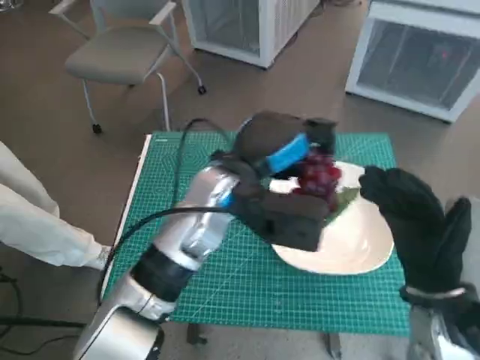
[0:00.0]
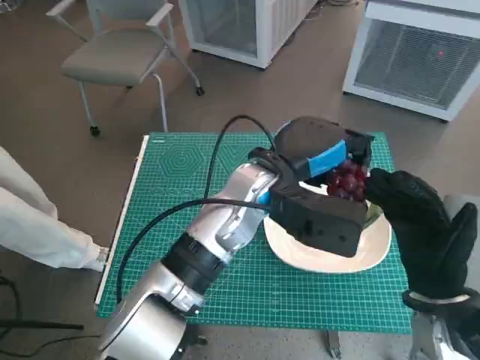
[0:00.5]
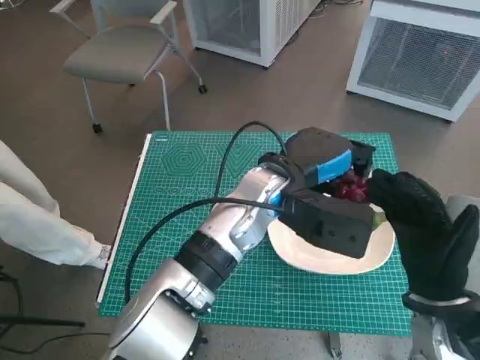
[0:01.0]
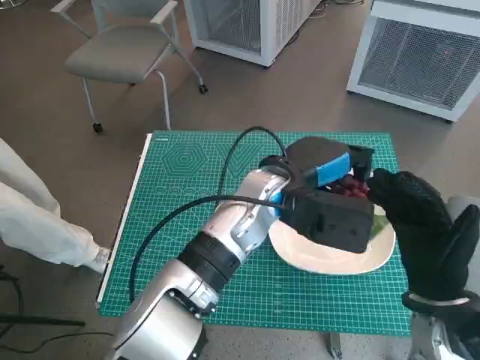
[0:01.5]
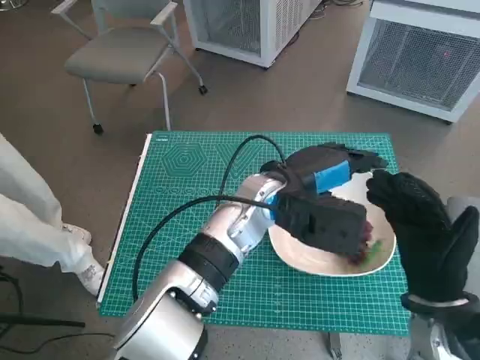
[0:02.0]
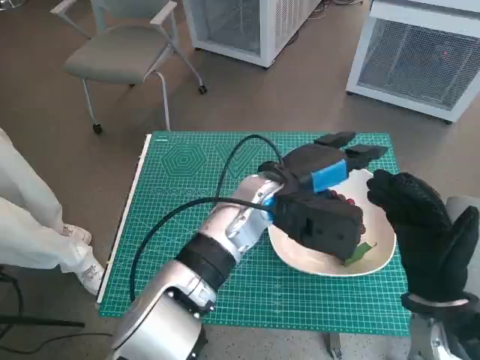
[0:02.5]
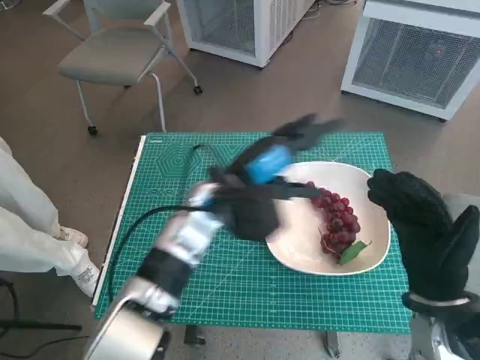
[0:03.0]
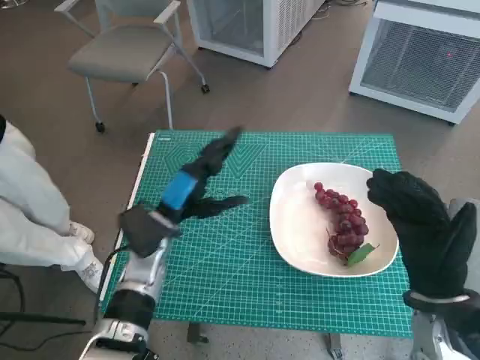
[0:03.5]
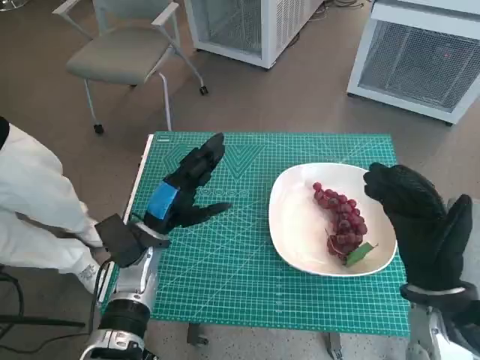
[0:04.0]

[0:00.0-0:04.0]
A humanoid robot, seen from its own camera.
Task of the whole recording: Pick up the grapes and put them on the plate.
0.0 to 2.0 s: The left hand is displaced to the right by some 5 cm.
2.0 to 4.0 s: The left hand shifts some 20 cm to the left and downward.

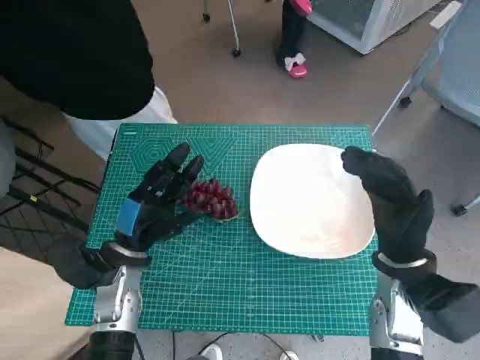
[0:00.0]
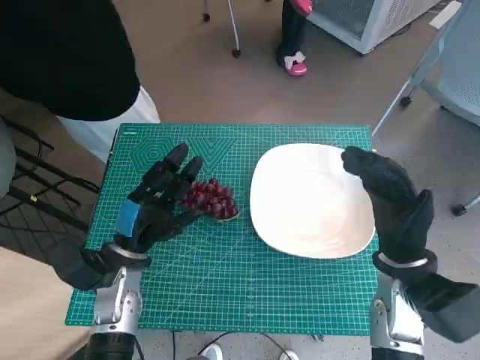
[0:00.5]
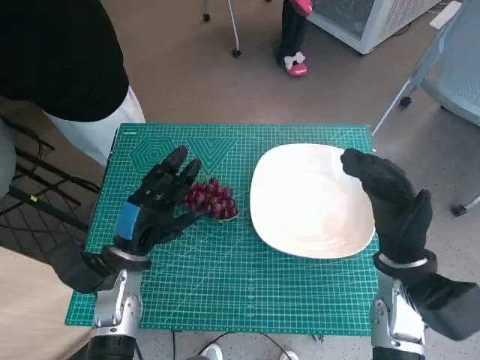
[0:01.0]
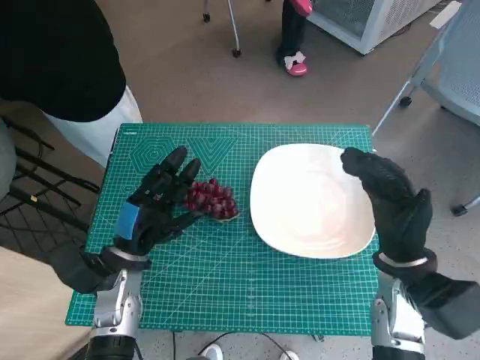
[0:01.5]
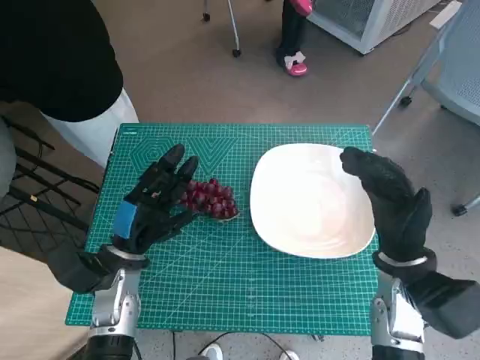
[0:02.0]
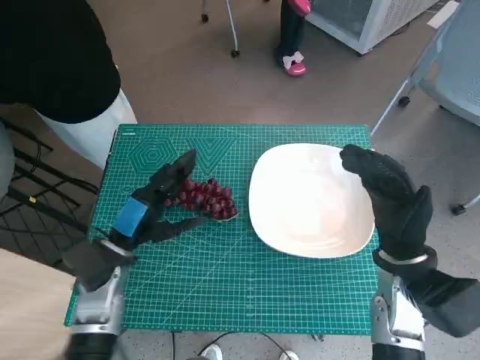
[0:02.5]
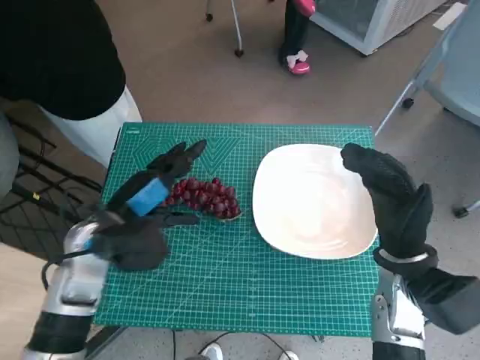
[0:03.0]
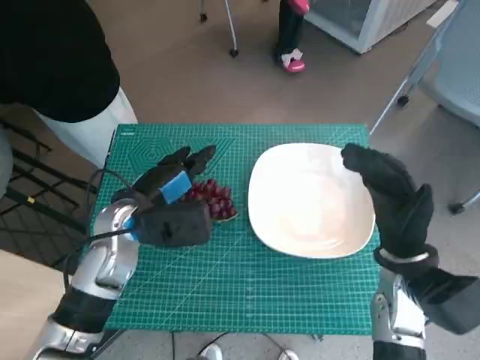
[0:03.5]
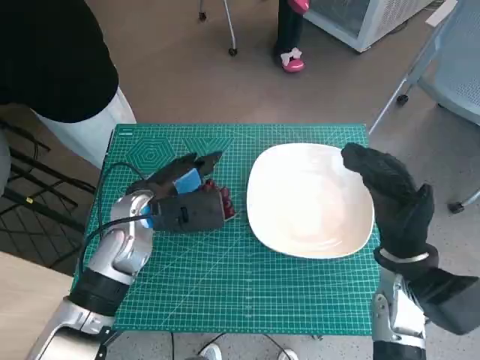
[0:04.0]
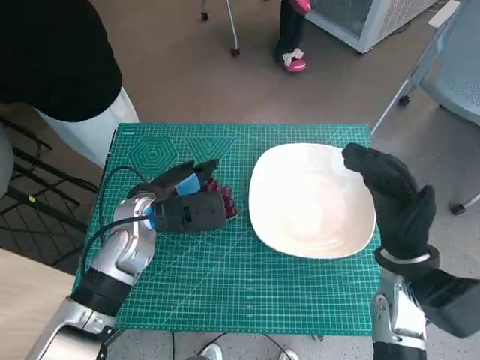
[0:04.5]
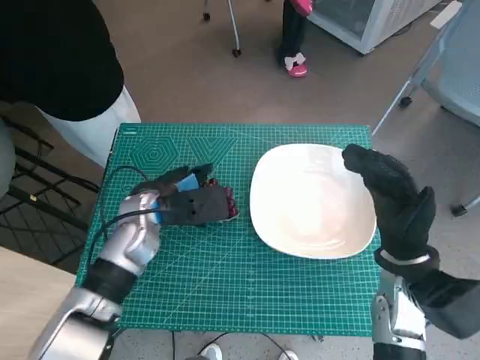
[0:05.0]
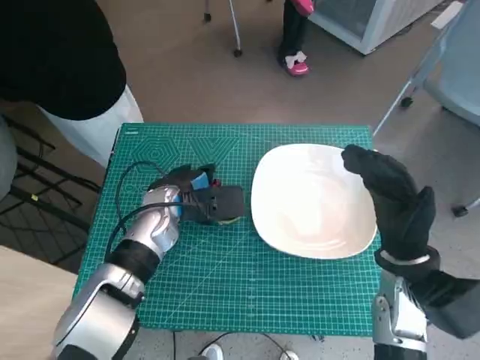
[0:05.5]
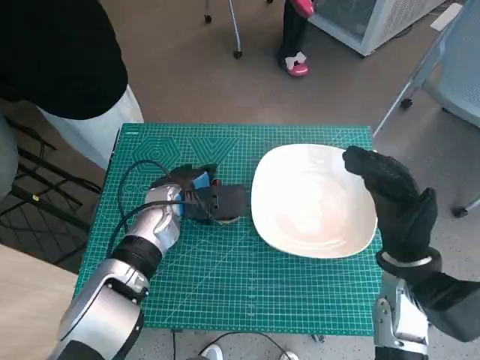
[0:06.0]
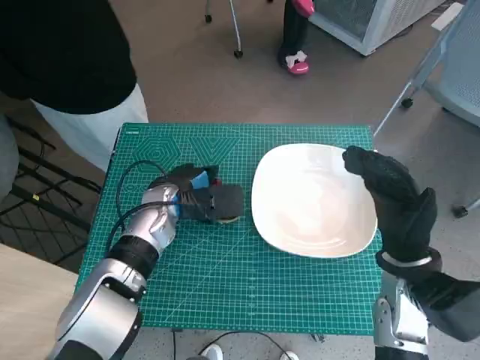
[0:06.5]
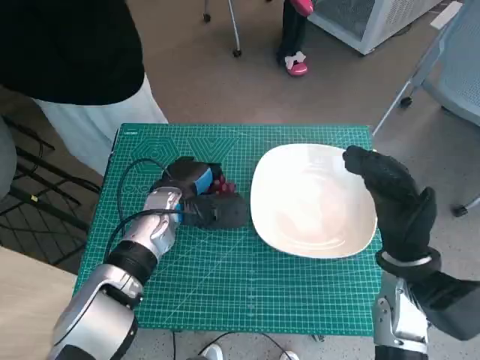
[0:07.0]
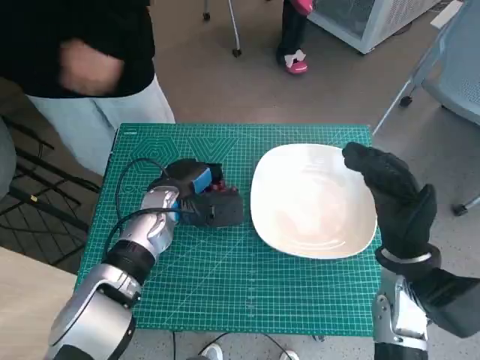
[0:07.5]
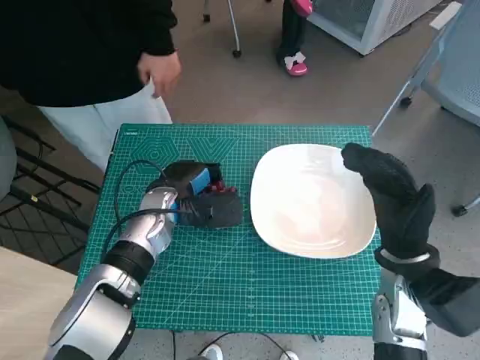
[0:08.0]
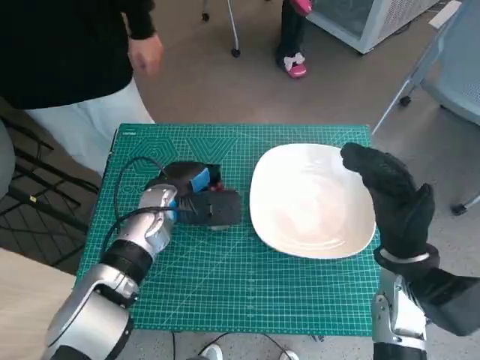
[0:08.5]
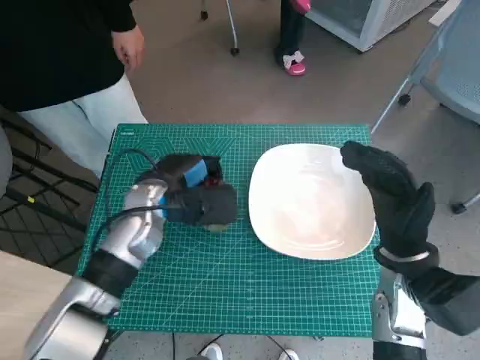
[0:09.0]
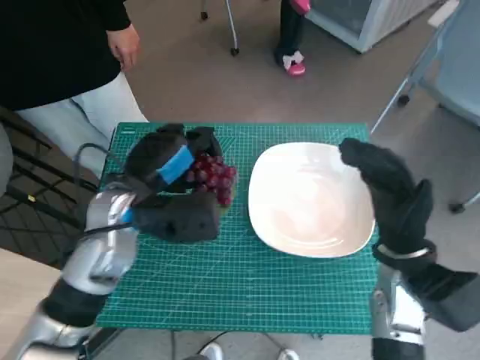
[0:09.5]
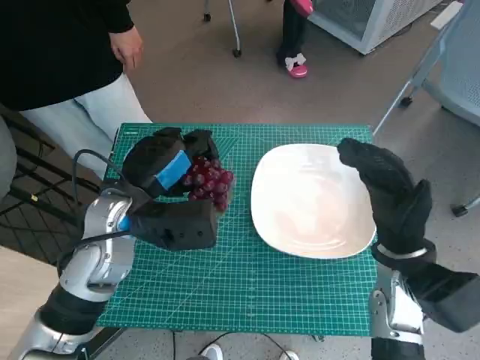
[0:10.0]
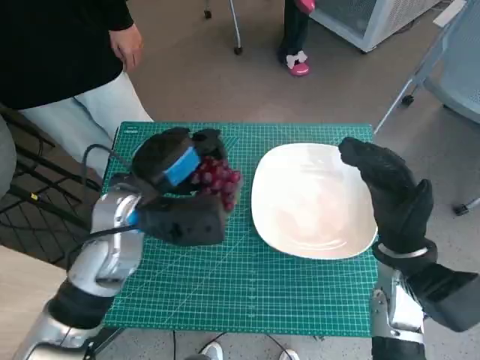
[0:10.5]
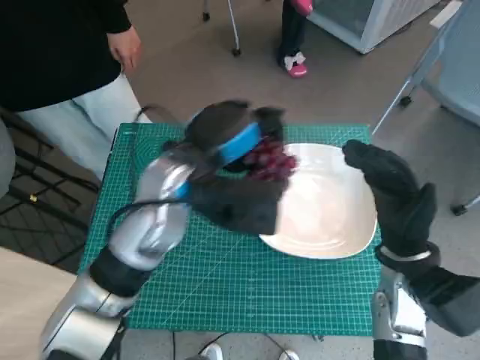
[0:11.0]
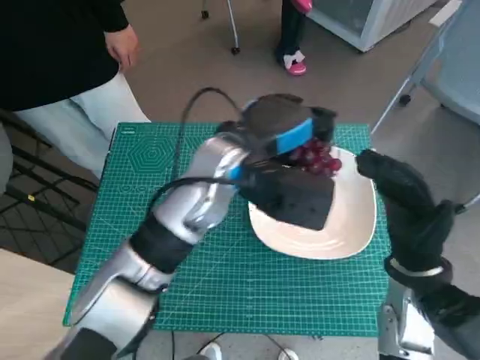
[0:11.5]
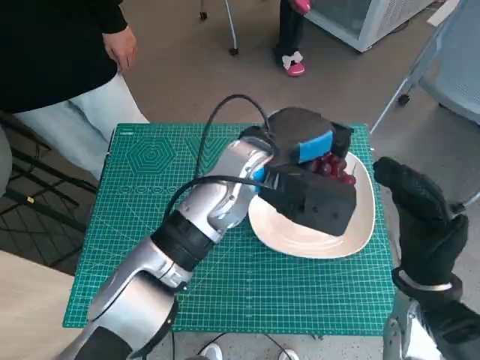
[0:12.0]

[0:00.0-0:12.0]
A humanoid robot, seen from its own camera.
Task of the whole recording: Pick up the grapes and put them on the plate.
Step, 0.0 to 7.0 s: Grasp the grapes with left hand.
2.0 to 4.0 s: The left hand goes some 10 cm upward and forward.
4.0 to 6.0 s: The left hand shifts by about 5 cm.
6.0 to 8.0 s: The hands move only a little.
8.0 to 10.0 s: The left hand goes roughly 10 cm upward and backward.
10.0 to 12.0 s: The left hand moves to the right, roughly 15 cm.

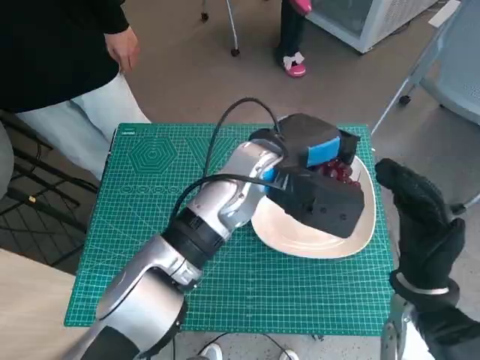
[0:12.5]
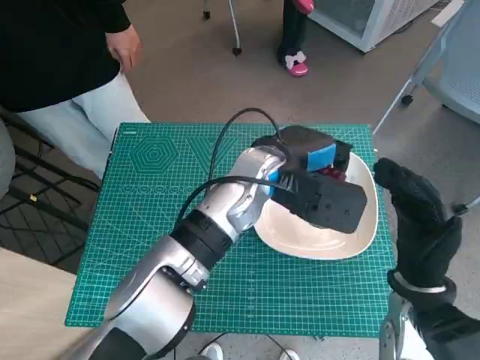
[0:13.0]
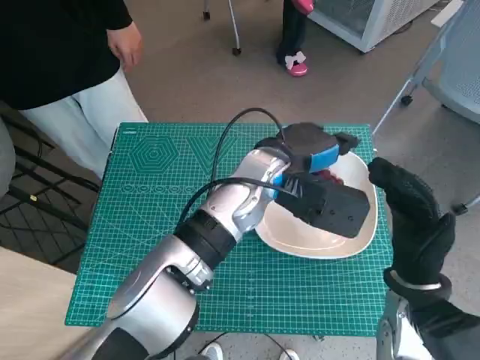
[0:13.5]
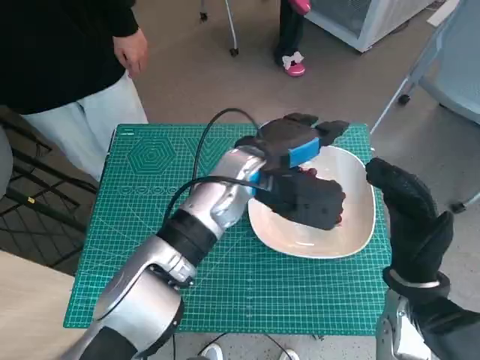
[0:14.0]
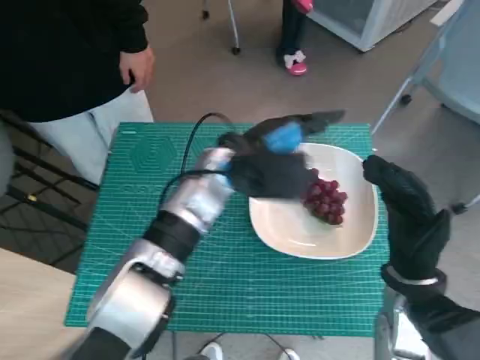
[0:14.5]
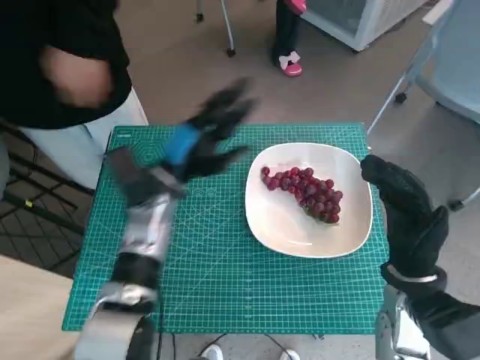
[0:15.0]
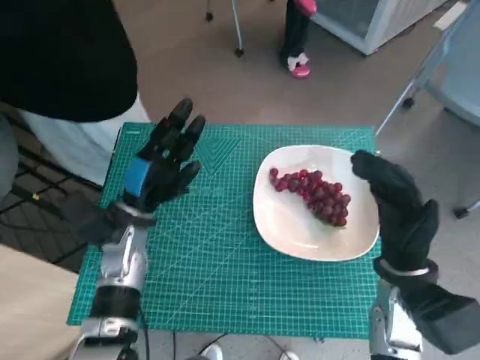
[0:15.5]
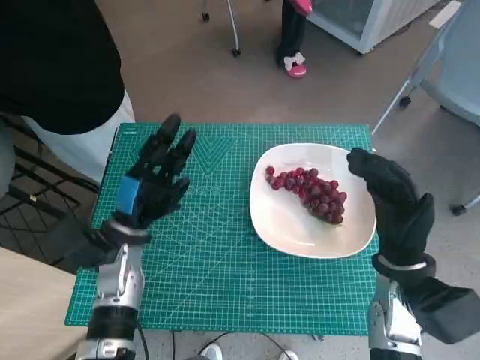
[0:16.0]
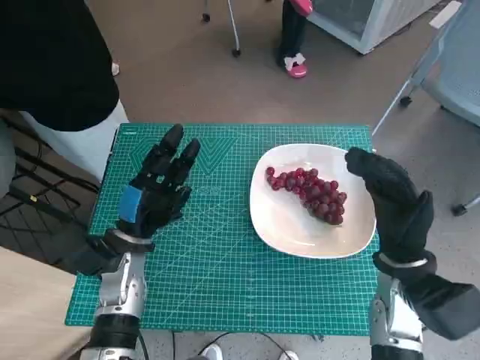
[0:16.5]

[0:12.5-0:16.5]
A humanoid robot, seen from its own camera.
Task of the whole recording: Pick up the grapes and put them on the plate.
12.5 to 14.5 s: The left hand moves about 5 cm.
14.5 to 16.5 s: The left hand heads to the left, downward and backward, covering approximately 20 cm.

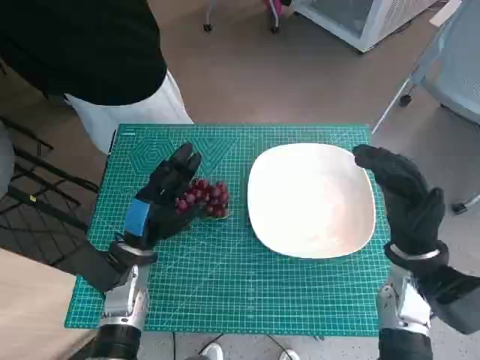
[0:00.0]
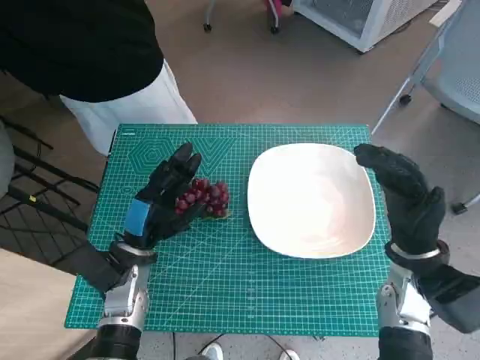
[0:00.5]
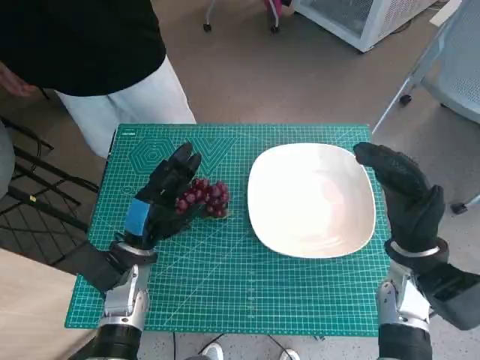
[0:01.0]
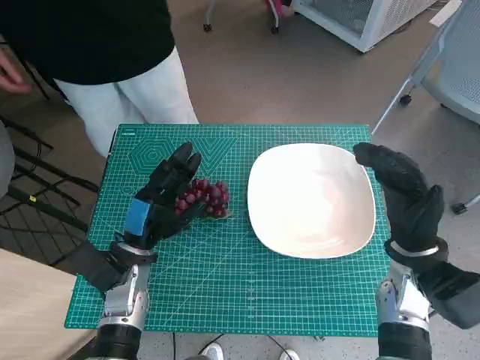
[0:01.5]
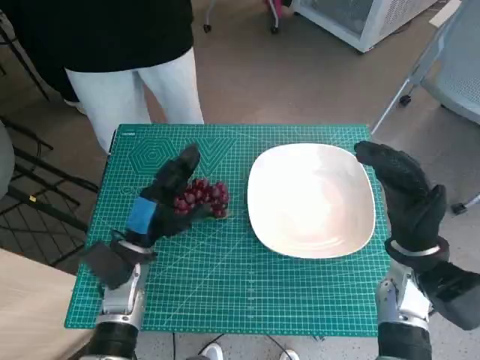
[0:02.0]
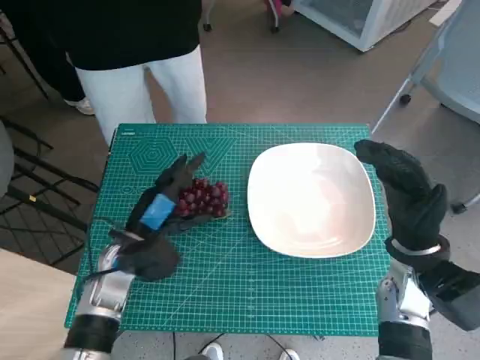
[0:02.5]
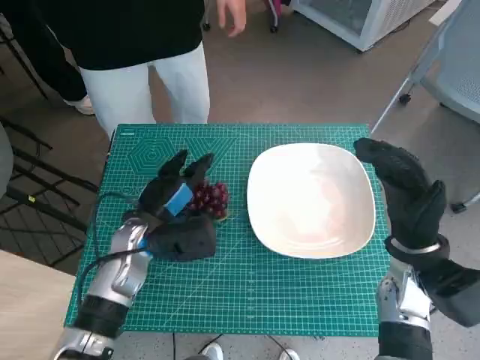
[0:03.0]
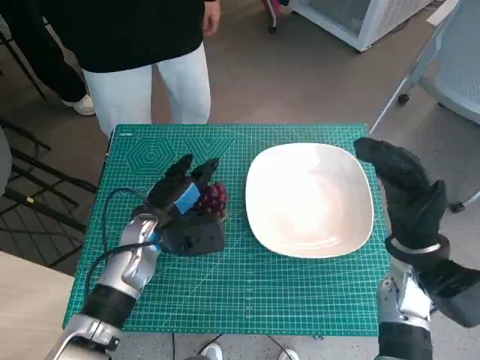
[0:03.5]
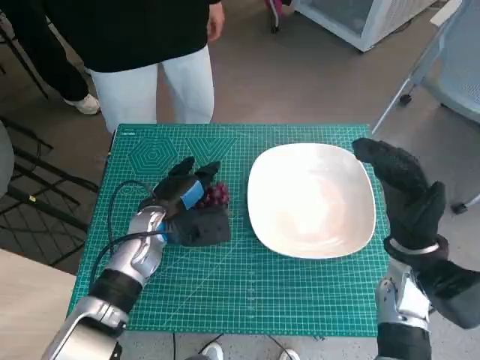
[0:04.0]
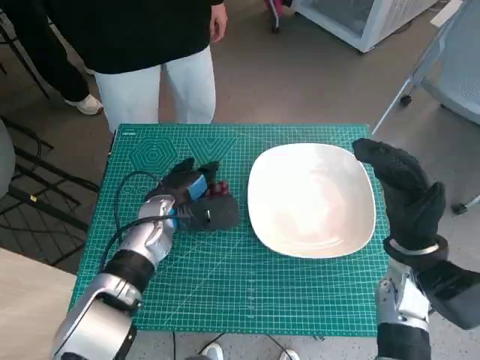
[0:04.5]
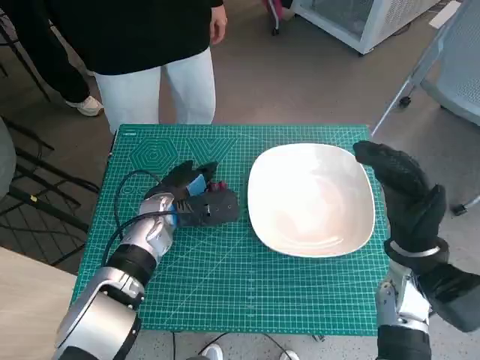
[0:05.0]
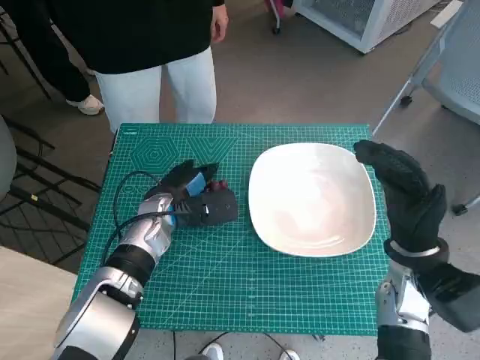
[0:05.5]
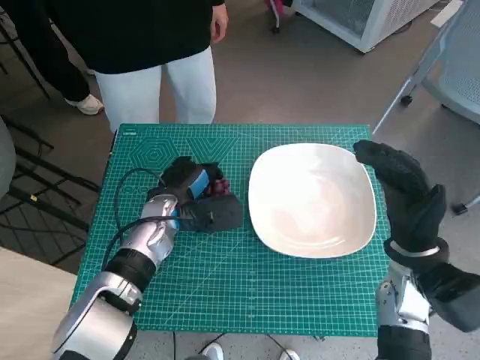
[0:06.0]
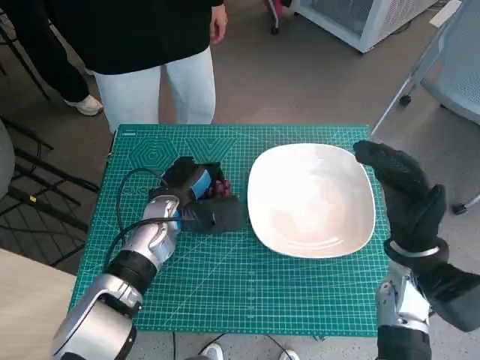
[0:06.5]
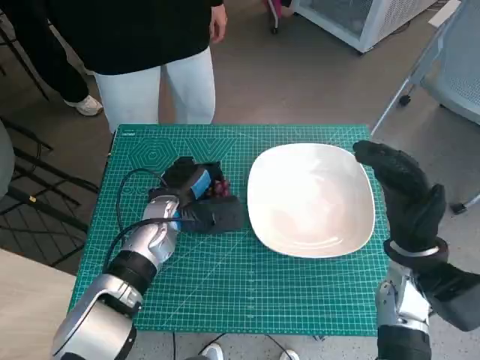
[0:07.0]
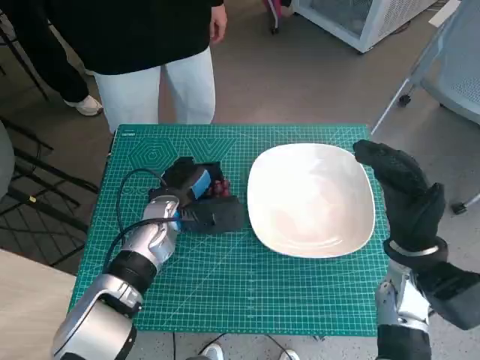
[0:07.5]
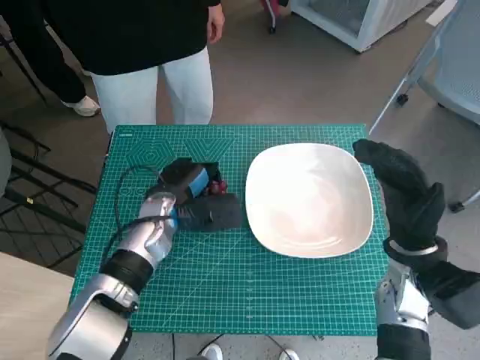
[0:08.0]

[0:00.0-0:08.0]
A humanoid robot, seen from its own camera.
Task of the whole recording: Pick up the grapes and put them on the plate.
Step, 0.0 to 6.0 s: Grasp the grapes with left hand.
2.0 to 4.0 s: The left hand heads forward, covering some 5 cm.
4.0 to 6.0 s: The hands make only small movements.
6.0 to 8.0 s: Both hands stay put.
